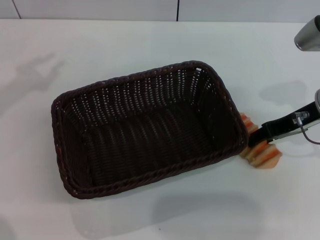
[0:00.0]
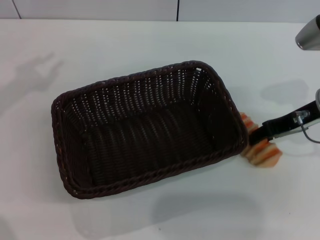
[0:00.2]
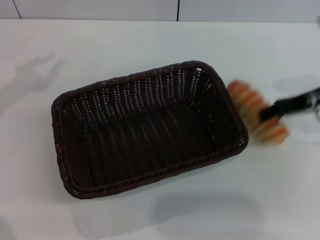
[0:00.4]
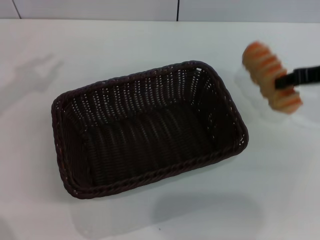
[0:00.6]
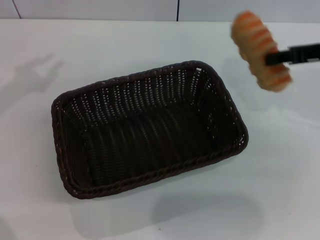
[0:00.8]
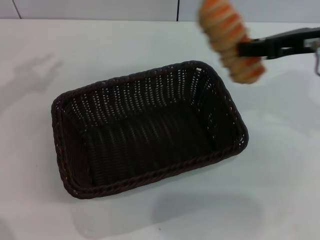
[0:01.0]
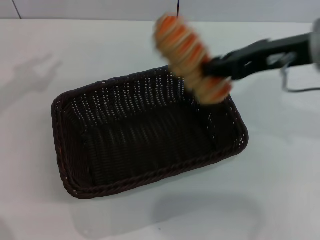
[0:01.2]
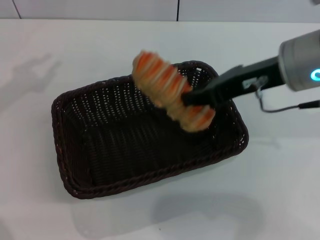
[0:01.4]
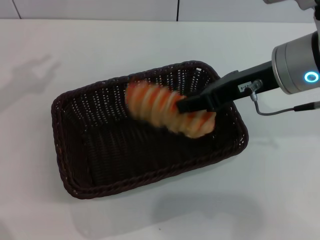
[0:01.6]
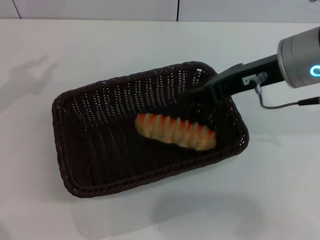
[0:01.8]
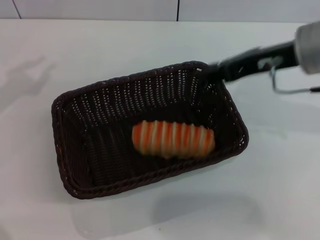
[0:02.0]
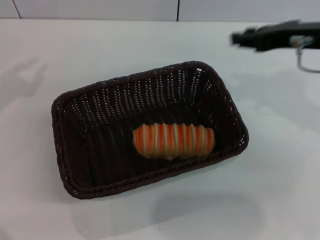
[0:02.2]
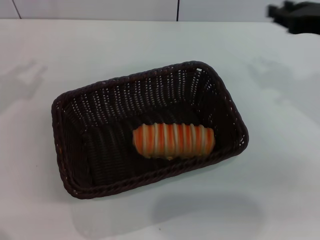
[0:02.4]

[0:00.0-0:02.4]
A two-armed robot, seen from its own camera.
Step, 0:00.6 to 0:01.6: Place the long bread into the dark basket with the right gripper.
0:00.0 to 0:01.2: The right gripper goes approximately 10 cm upward and to the left, and closes.
0:01.2 to 0:02.4: The right gripper heads to the right, covering approximately 10 cm.
